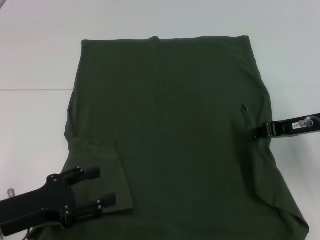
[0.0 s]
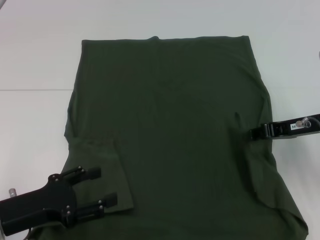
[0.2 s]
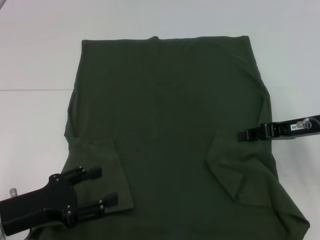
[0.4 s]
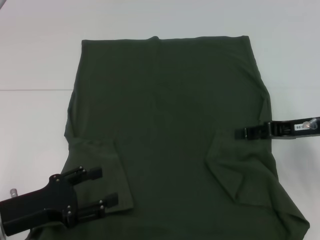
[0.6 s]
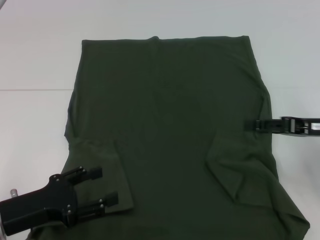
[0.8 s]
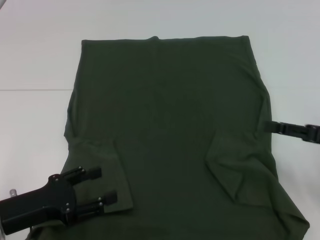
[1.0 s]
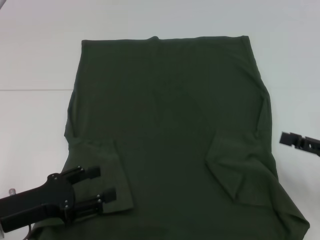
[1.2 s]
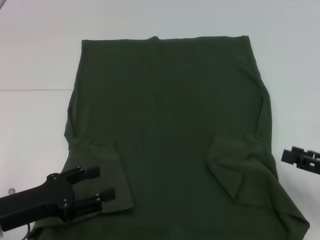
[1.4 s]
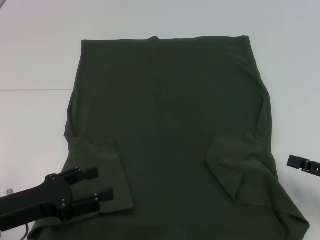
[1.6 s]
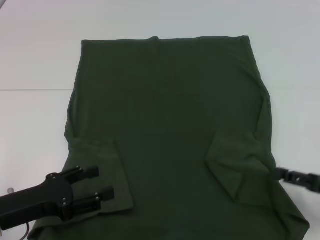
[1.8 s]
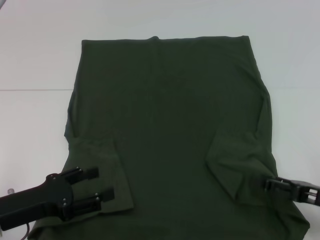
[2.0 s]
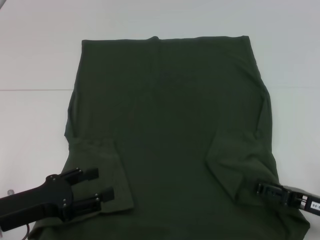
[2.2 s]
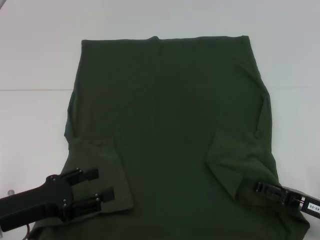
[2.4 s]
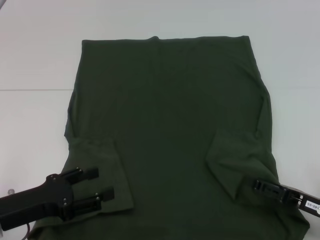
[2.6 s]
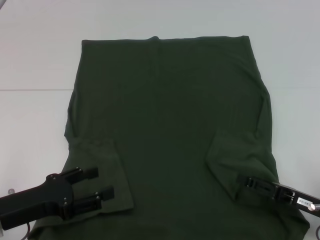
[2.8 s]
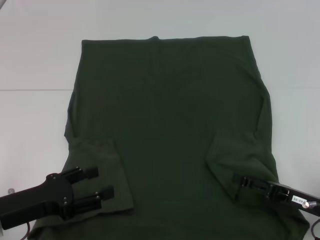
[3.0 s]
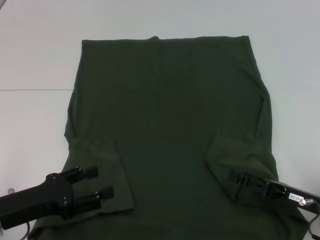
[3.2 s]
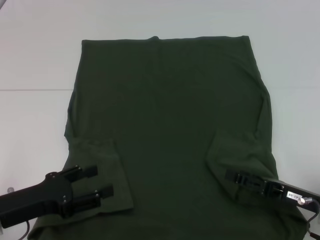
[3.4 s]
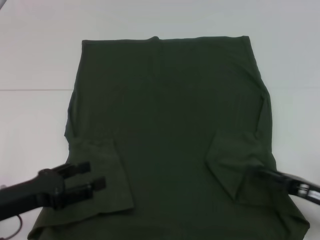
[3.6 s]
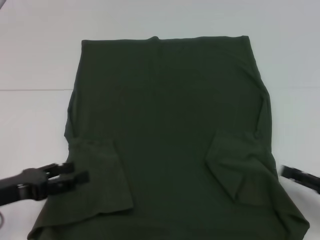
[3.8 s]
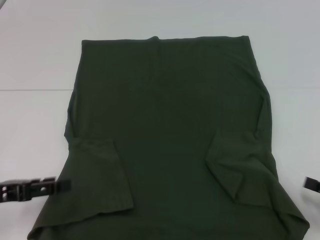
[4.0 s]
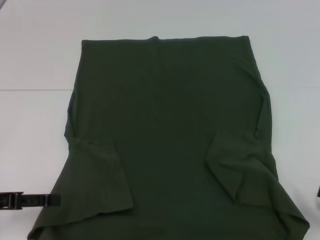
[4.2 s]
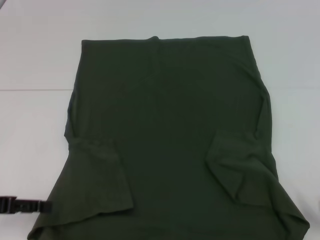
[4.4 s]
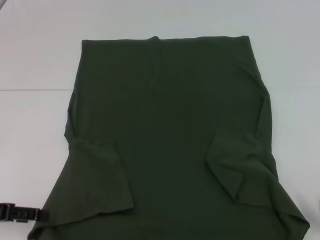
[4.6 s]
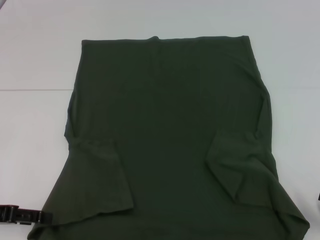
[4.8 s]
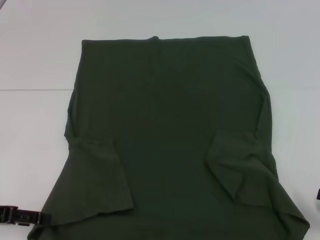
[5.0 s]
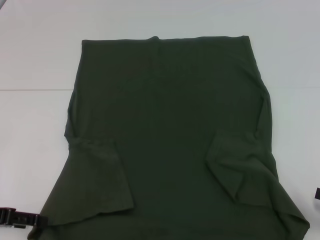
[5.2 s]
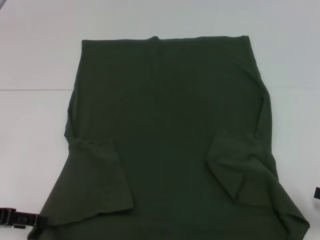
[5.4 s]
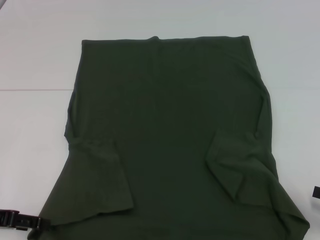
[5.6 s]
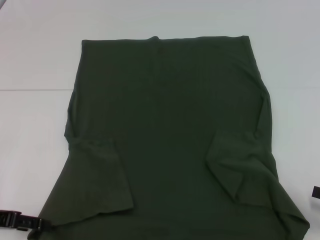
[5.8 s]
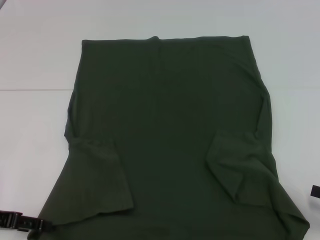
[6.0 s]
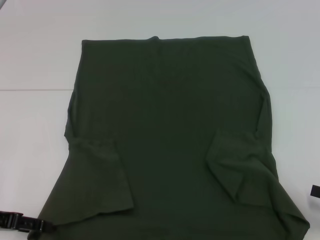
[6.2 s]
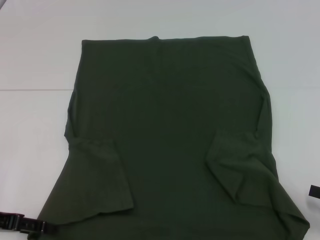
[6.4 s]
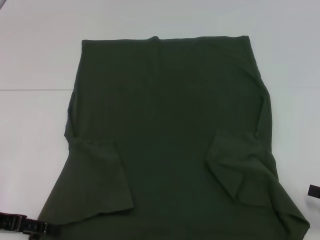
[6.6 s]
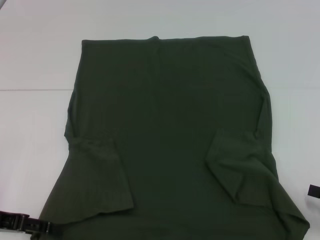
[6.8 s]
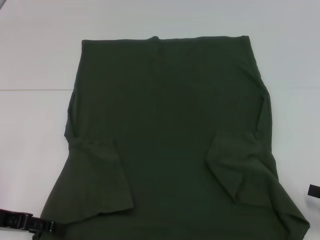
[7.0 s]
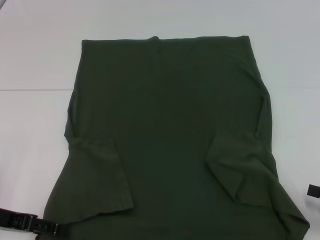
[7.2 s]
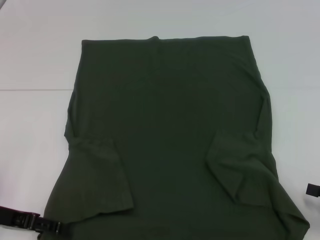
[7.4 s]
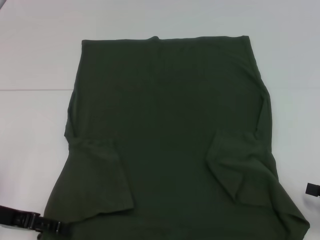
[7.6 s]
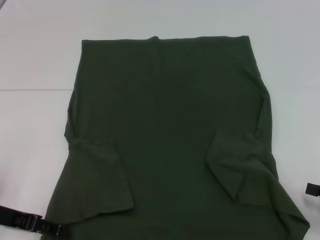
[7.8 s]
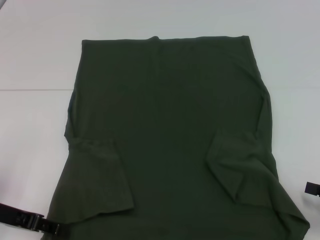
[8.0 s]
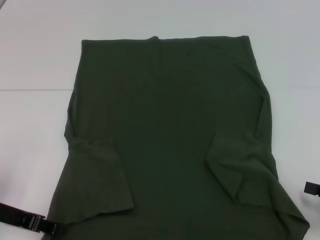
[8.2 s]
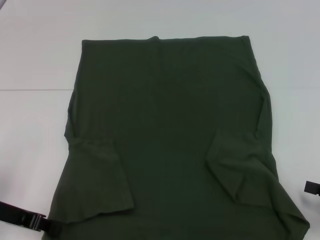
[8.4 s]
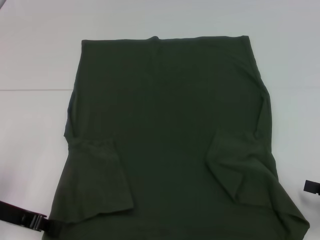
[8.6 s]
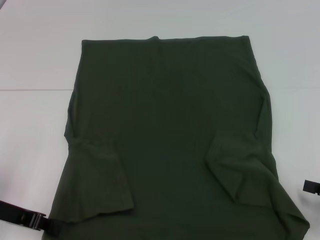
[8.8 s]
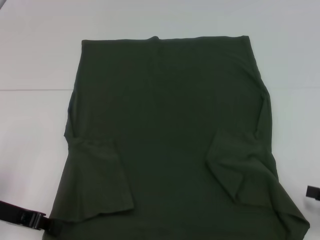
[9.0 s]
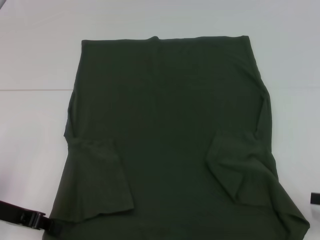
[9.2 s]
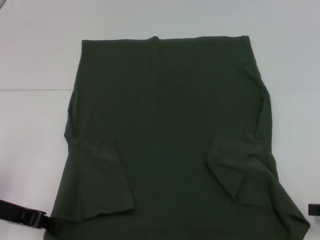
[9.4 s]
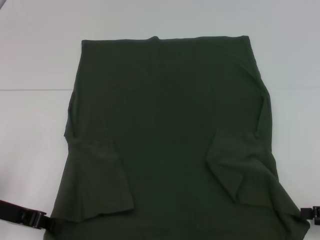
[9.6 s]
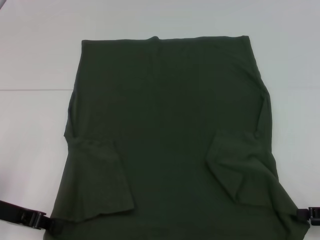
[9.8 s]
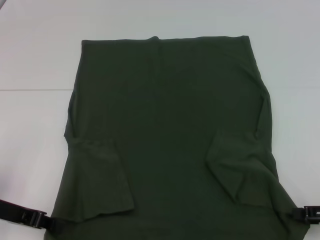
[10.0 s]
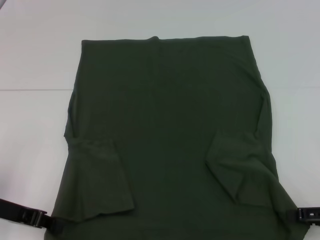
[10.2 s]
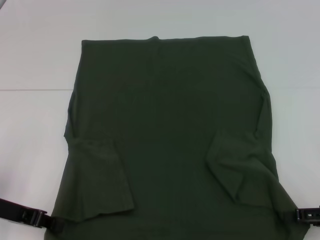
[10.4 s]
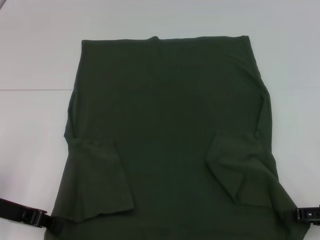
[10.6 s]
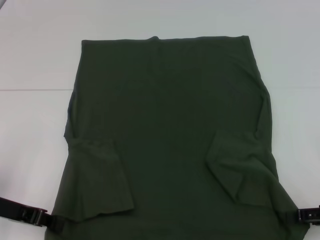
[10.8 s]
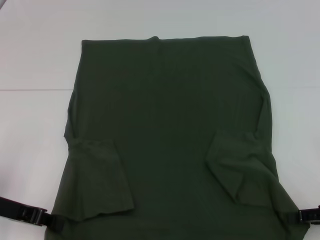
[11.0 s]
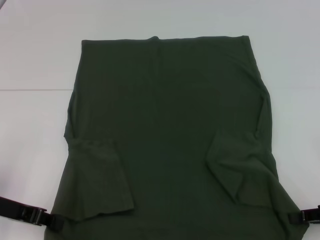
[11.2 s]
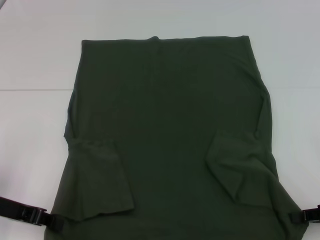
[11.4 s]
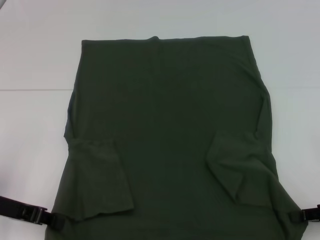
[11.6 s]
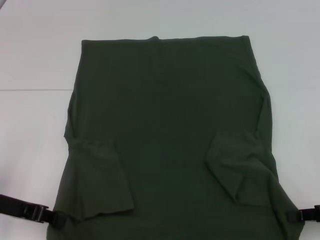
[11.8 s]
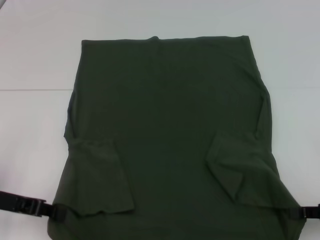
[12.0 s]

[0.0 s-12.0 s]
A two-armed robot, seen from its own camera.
Step, 0.8 to 8.4 s: Grab the bottom left corner with your left hand.
0.0 to 1.6 s: The right gripper moves backward, to the right and downward, about 15 cm, and opens up.
1.6 to 3.0 s: The right gripper is displaced to the left and downward by approximately 10 cm.
3.0 to 4.4 s: The right gripper heads to the right and backward, covering about 15 cm, while the left gripper is displaced to the left by roughly 10 cm.
4.4 to 7.6 s: The grippers move only a little.
7.6 to 9.0 s: The left gripper closes.
9.0 to 10.4 s: There are only small adjustments of the grippers.
10.4 to 12.0 s: The right gripper closes up.

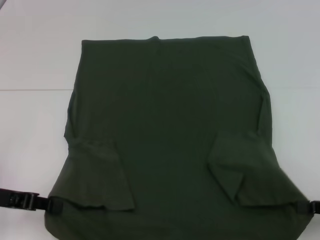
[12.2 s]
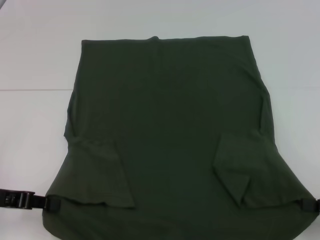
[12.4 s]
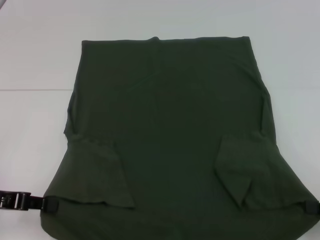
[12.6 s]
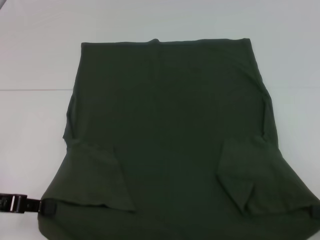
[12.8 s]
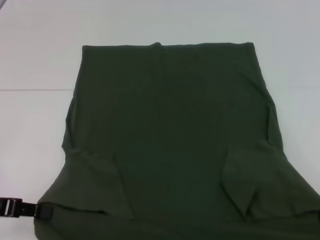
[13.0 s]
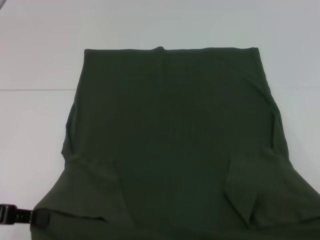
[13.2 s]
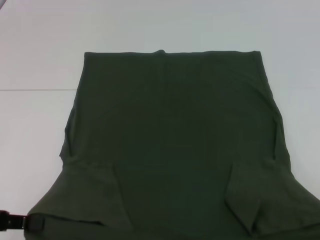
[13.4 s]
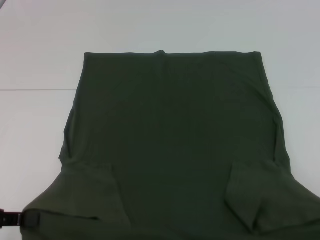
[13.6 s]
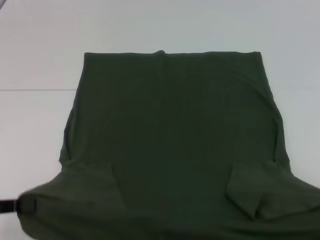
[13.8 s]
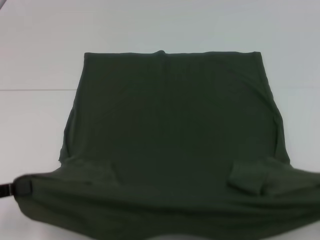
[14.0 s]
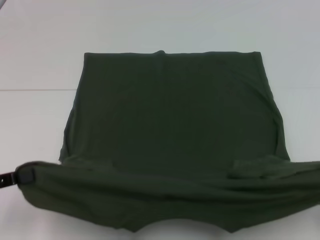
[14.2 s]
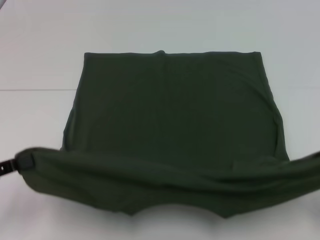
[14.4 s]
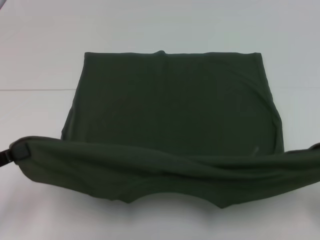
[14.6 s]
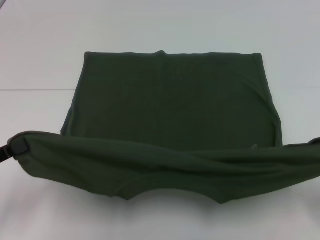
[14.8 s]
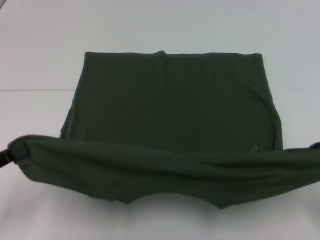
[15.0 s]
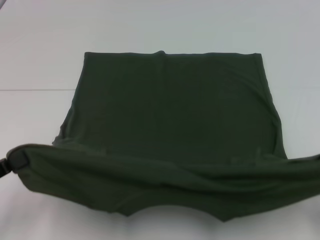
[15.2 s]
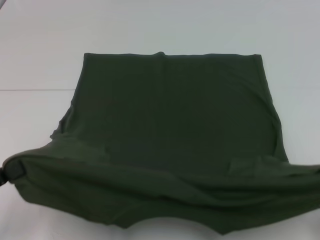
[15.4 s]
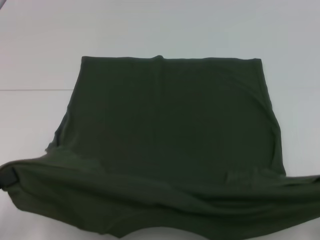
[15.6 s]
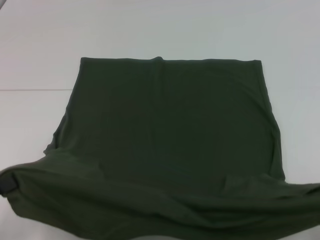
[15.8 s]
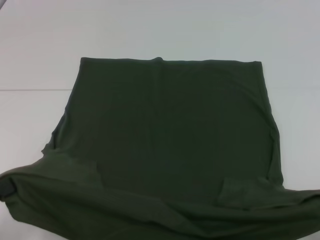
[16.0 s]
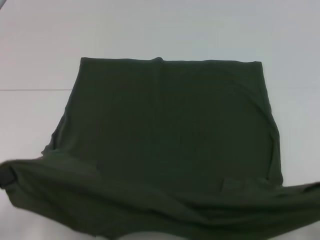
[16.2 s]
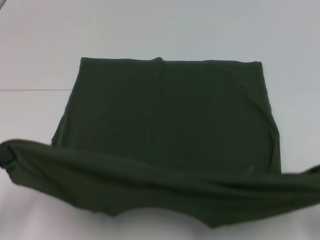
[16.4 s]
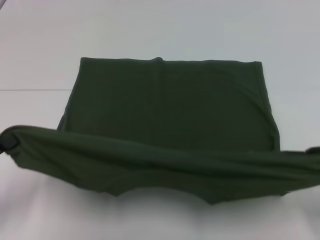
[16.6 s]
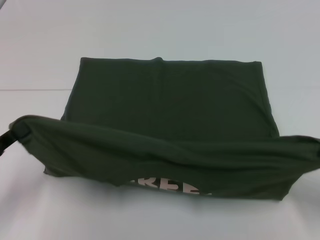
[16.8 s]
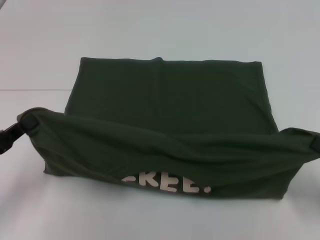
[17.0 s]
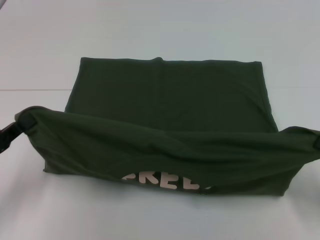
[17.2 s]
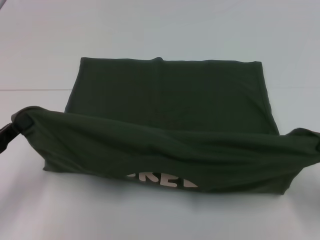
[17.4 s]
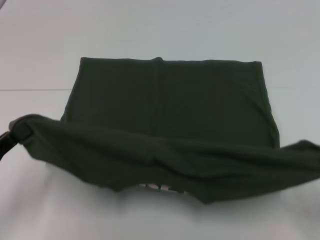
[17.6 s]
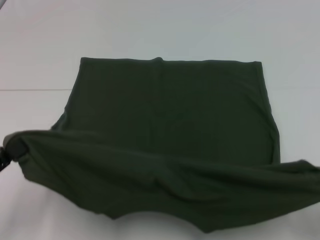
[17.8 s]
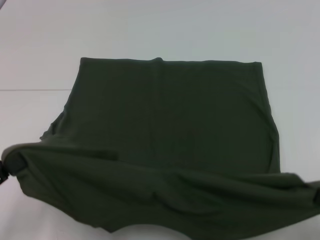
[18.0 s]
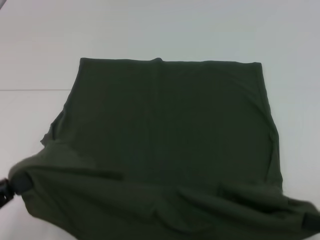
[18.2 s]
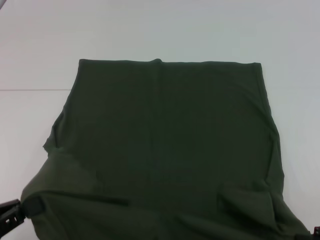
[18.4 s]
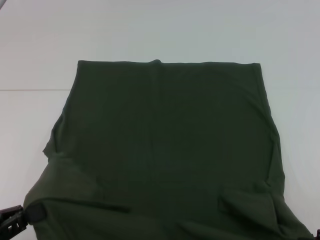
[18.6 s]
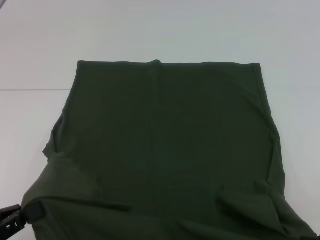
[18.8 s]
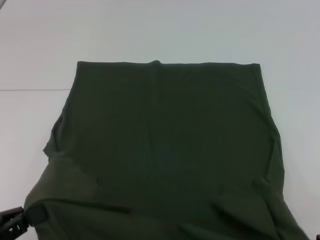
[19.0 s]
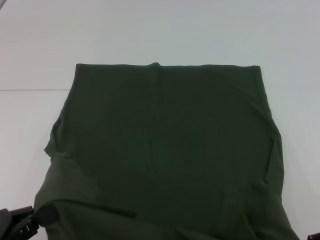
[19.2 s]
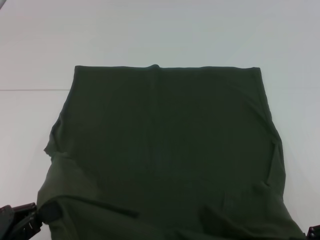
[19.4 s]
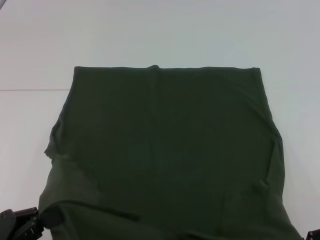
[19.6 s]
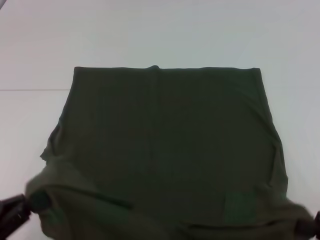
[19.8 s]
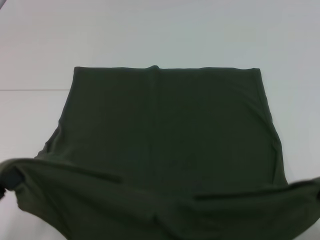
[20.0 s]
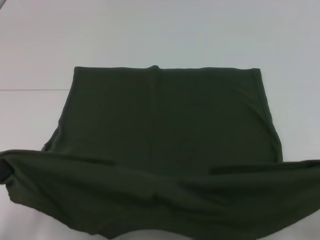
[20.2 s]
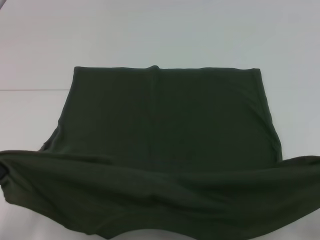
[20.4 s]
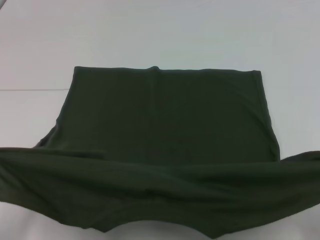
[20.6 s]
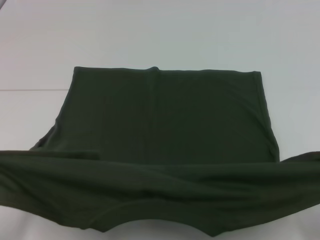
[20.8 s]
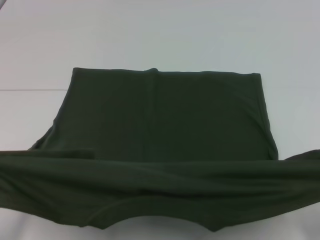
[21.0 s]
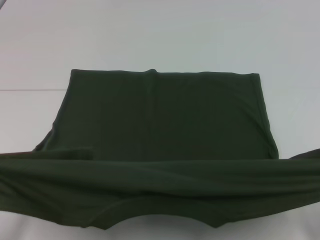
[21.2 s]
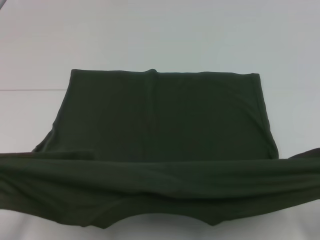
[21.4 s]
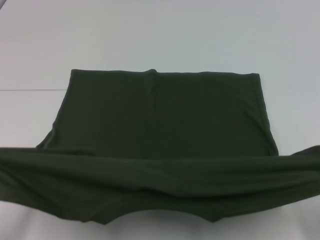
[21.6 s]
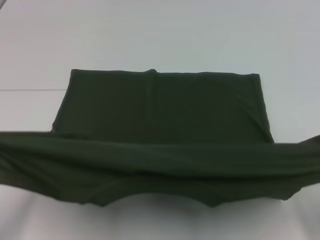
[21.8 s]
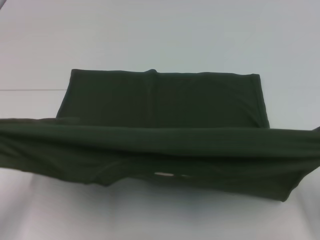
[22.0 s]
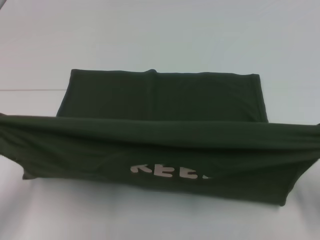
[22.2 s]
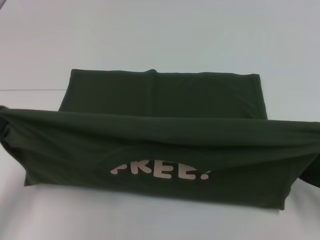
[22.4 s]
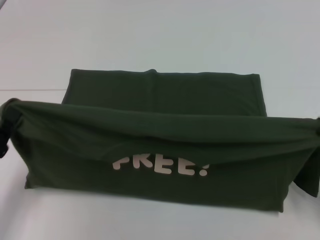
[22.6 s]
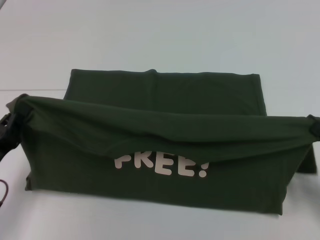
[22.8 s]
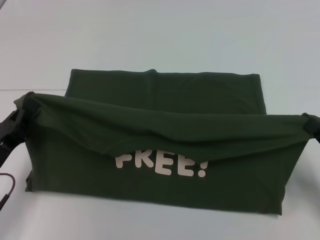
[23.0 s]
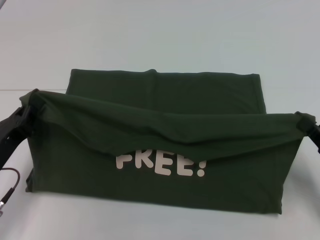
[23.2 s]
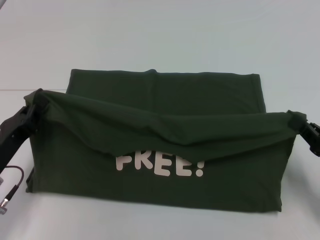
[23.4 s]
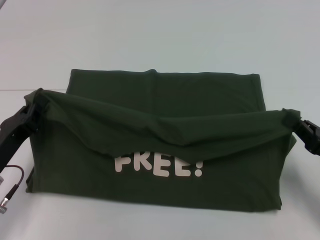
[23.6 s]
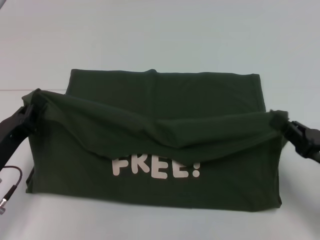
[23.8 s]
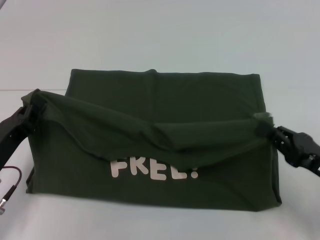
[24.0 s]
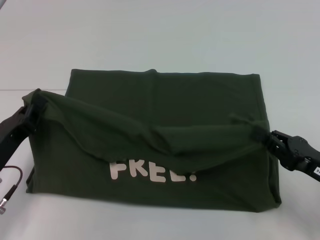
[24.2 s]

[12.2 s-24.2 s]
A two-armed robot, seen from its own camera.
12.2 to 13.8 s: The two grippers go roughly 5 cm backward.
15.2 to 16.6 s: There are only small adjustments of the grippers.
18.2 to 19.8 s: The grippers make only small movements.
21.2 to 22.6 s: The right gripper heads forward, covering some 5 cm, while the left gripper moves forward, approximately 10 cm.
22.6 to 24.2 s: The left gripper heads forward, covering roughly 5 cm. The right gripper moves to the left, roughly 5 cm.
